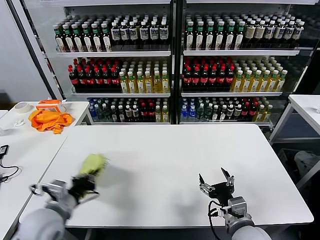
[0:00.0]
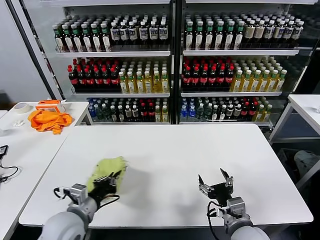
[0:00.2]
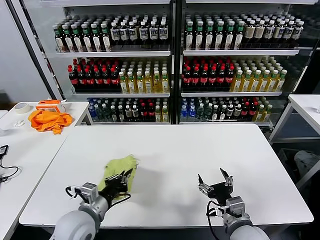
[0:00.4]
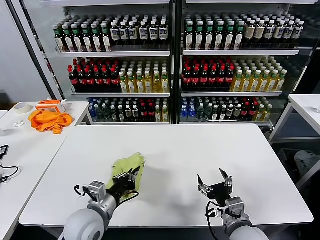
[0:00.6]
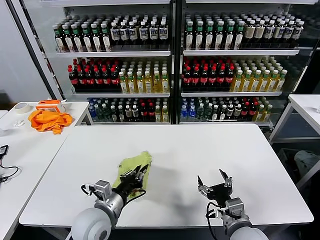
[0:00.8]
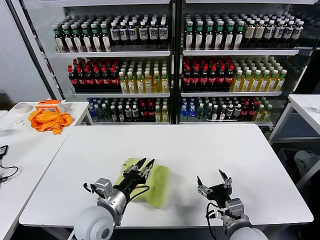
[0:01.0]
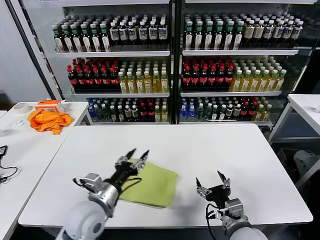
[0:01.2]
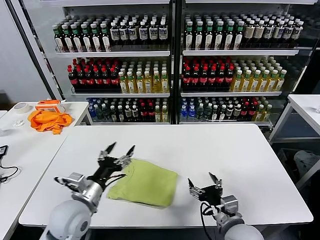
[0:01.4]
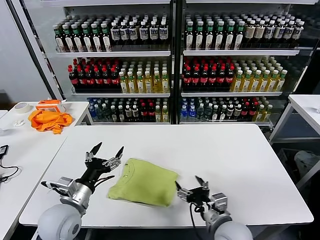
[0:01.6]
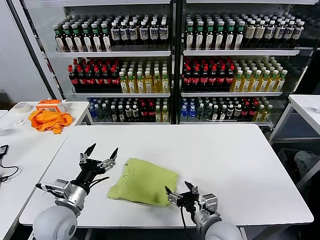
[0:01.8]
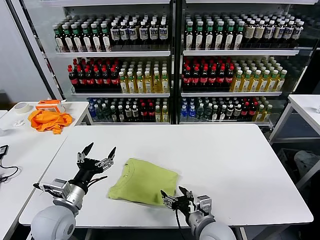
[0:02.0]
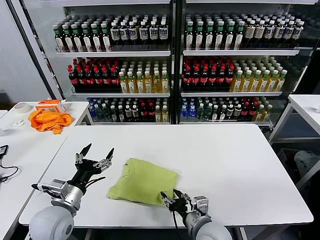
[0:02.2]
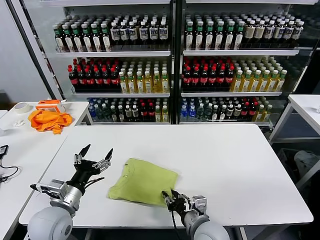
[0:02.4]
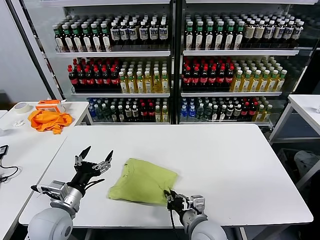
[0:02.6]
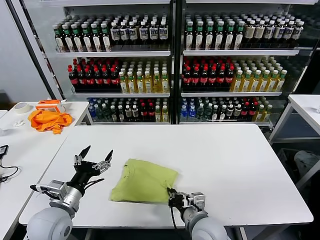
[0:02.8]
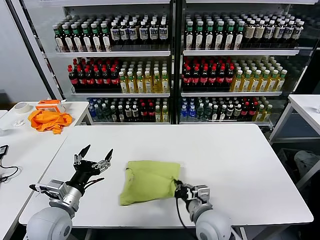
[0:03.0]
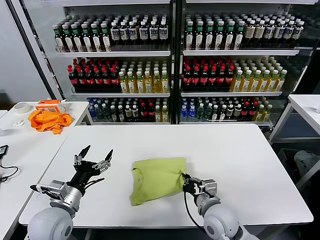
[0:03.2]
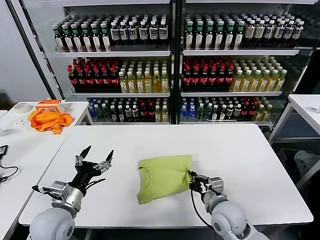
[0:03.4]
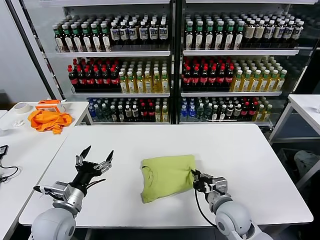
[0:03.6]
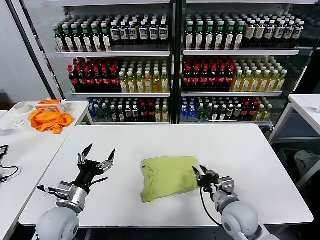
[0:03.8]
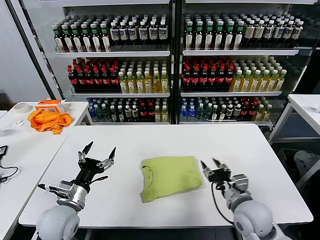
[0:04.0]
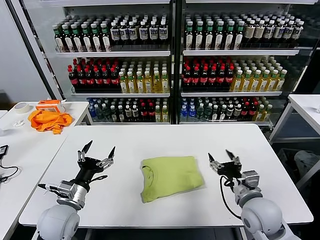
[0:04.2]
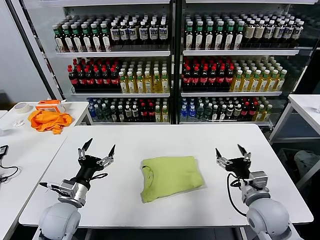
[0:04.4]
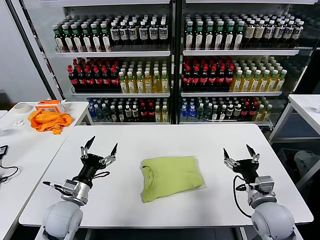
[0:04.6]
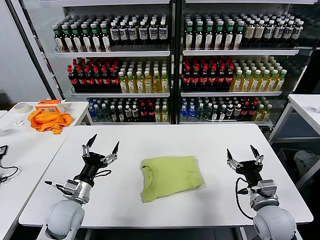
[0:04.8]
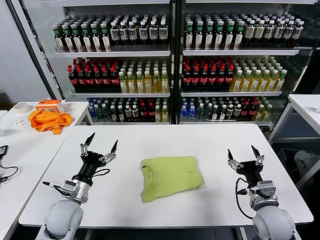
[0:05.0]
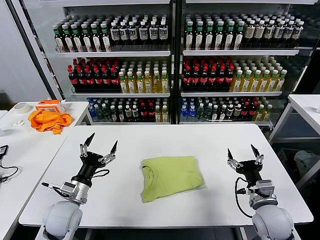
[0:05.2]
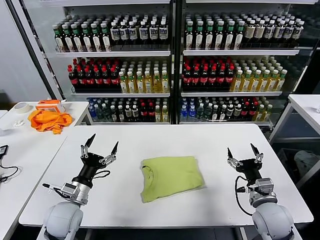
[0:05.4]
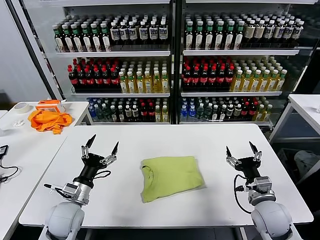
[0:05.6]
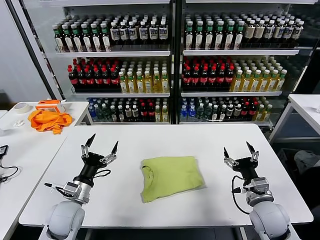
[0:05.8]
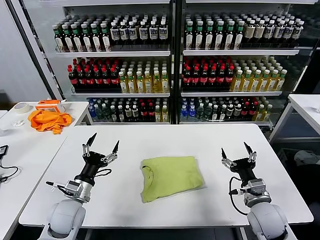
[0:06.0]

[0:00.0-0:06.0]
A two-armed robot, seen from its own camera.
Task of the whole recording: fold and organize the clothes.
Step, 0:01.2 to 0:03.8: Drag the clothes to the center of the table.
0:00.0 to 0:01.6: The left gripper is displaced to the right by roughly 5 cm, and opens.
0:01.6 to 0:03.0: The right gripper moves about 5 cm, and closes.
0:03.0 to 0:04.4: The right gripper goes some 15 cm to the right, and opens.
0:04.4 to 0:06.0: The grippers make only small movements.
